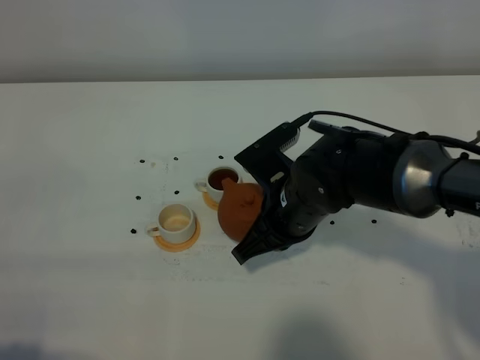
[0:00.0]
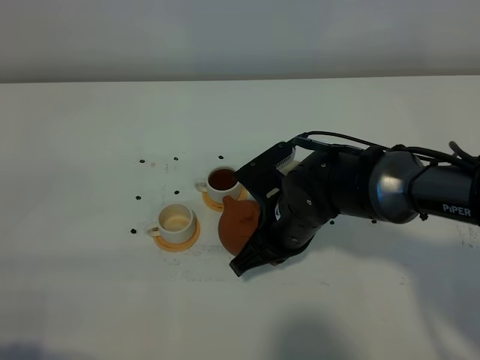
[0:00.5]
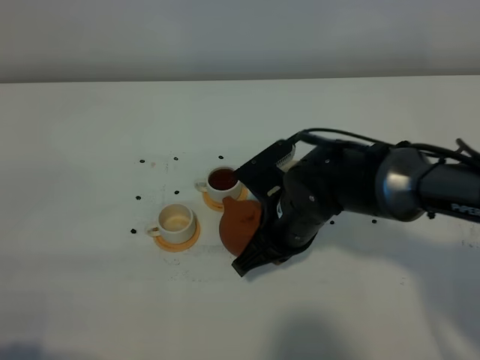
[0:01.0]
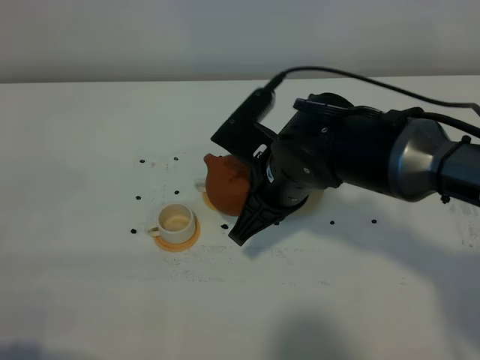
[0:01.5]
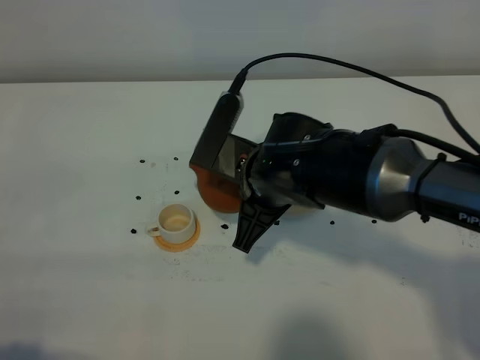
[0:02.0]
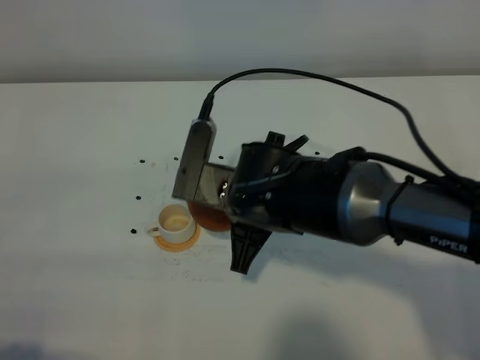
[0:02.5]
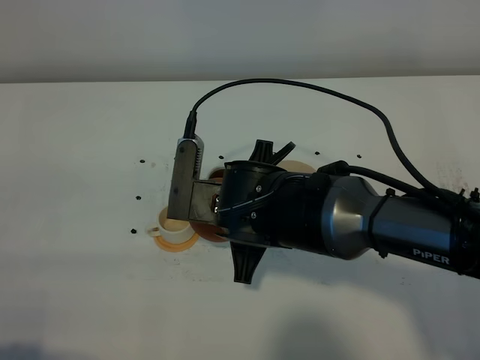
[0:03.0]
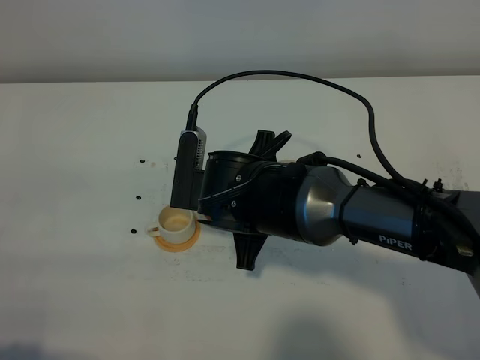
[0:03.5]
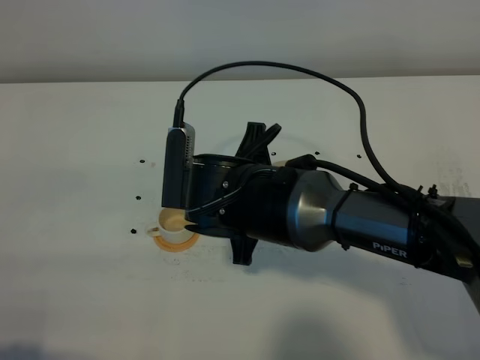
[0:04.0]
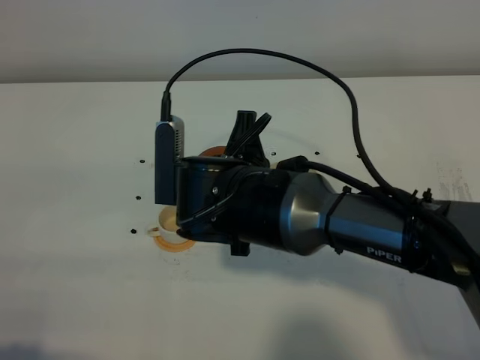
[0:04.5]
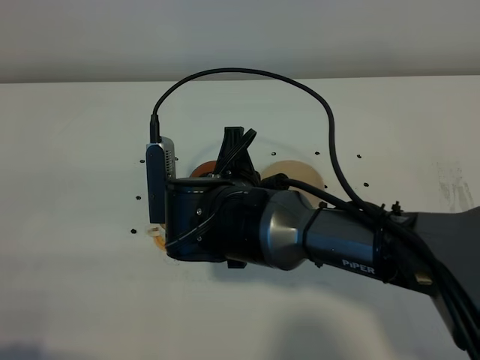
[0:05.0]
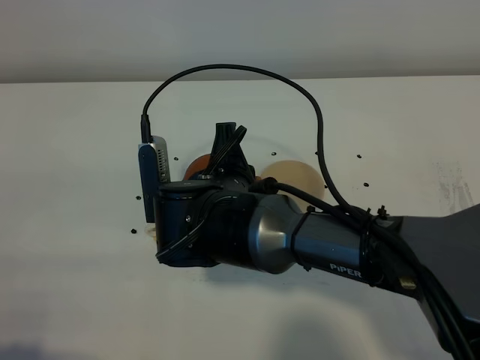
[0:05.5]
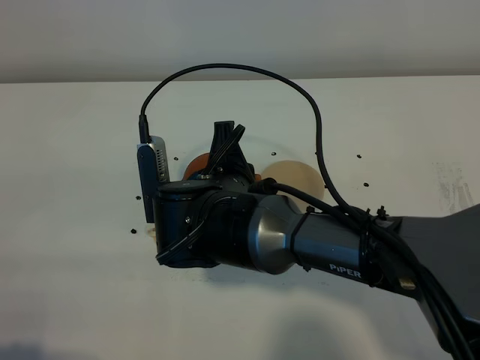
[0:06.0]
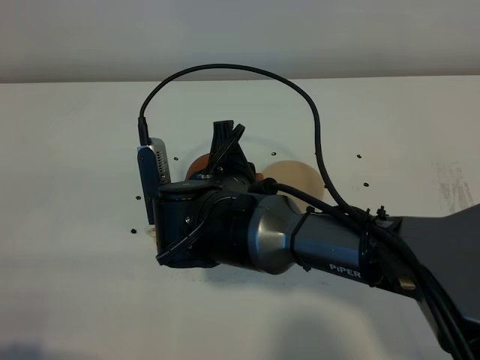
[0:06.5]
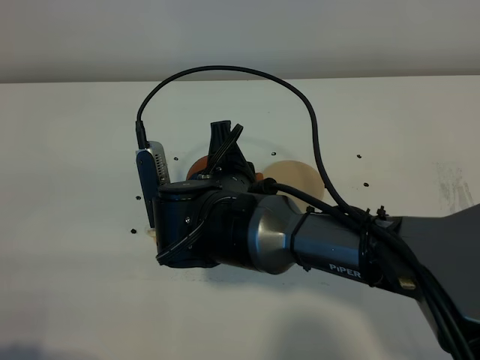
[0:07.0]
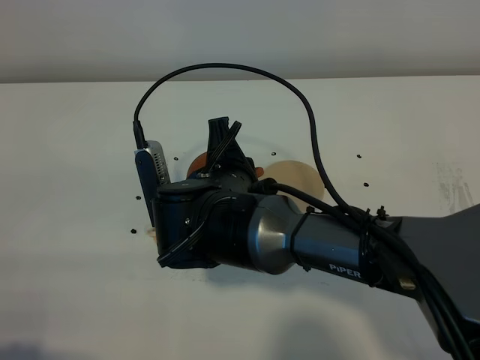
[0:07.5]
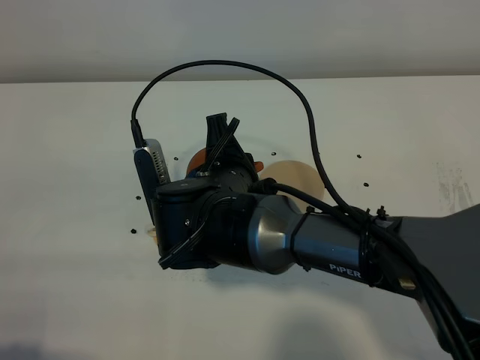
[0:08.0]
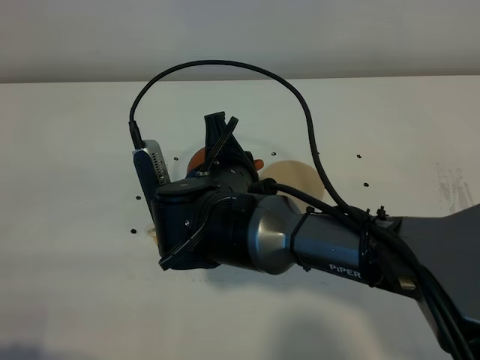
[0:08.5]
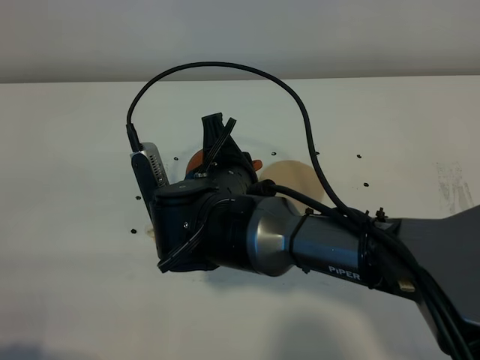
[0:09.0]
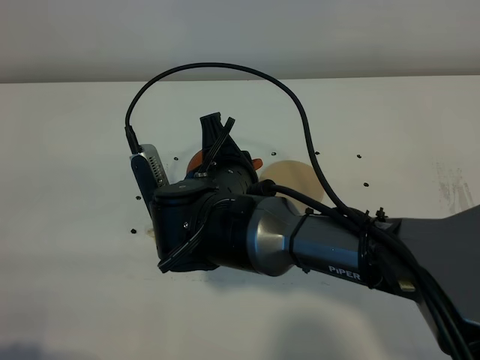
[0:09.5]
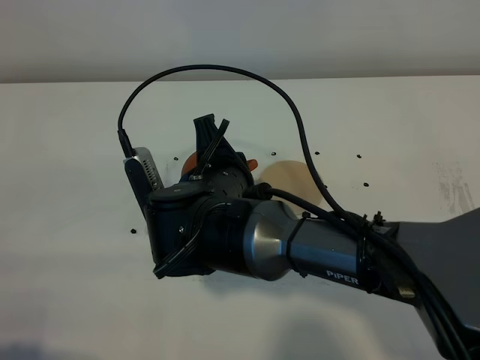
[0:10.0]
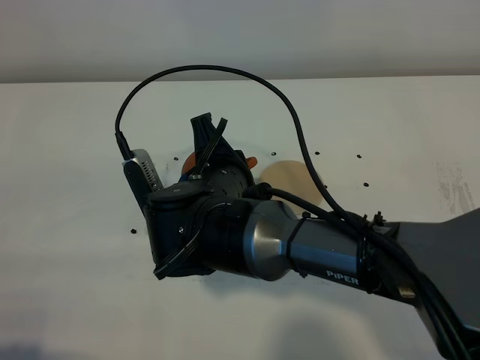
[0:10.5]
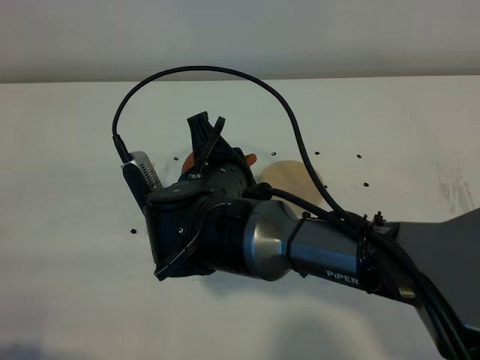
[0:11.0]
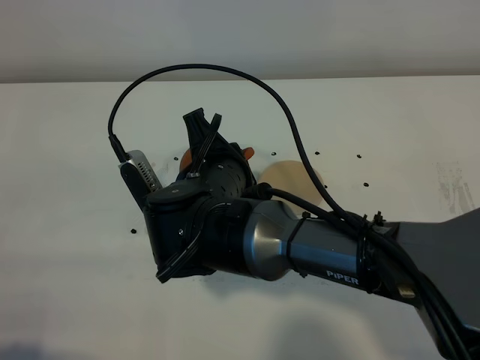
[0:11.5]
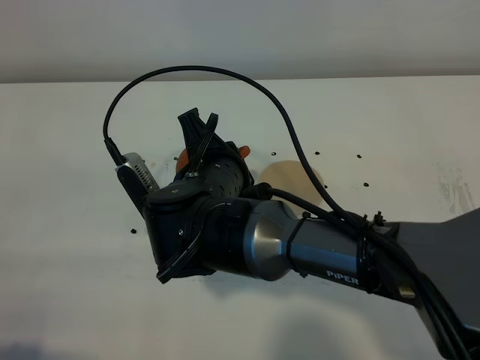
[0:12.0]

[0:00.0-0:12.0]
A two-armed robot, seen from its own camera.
Task of the whole recording: grasp the brown teapot and pour the tea into the two white teacups one by one, put the brown teapot back in its original place.
0:00.0 to 0:02.0: The right gripper ends up approximately 5 cm from where it was.
0:06.0 to 0:10.0: The grippers move only a little.
0:10.0 to 0:12.0: There are only small adjustments of the grippers.

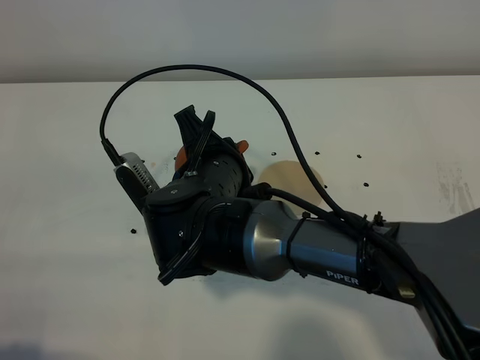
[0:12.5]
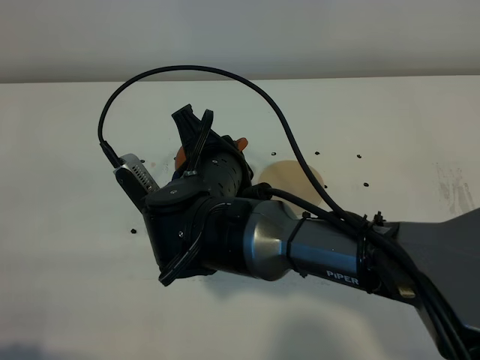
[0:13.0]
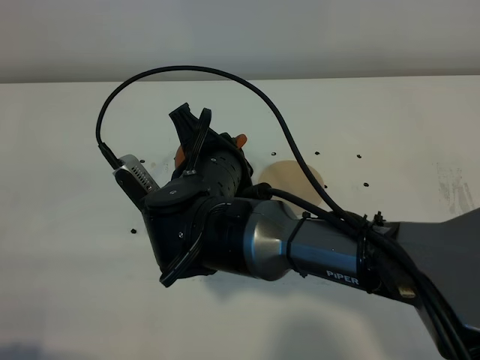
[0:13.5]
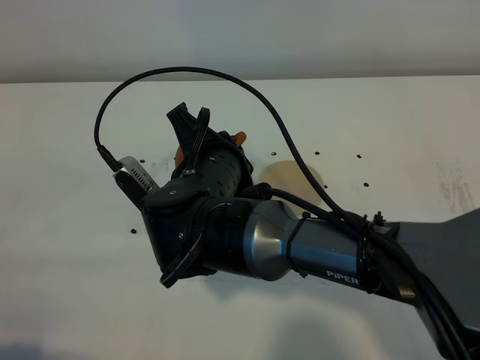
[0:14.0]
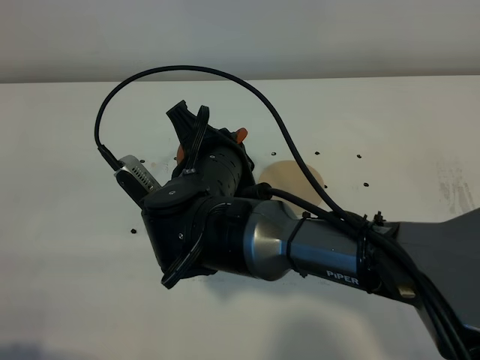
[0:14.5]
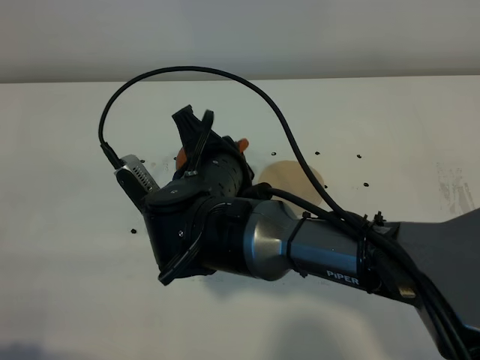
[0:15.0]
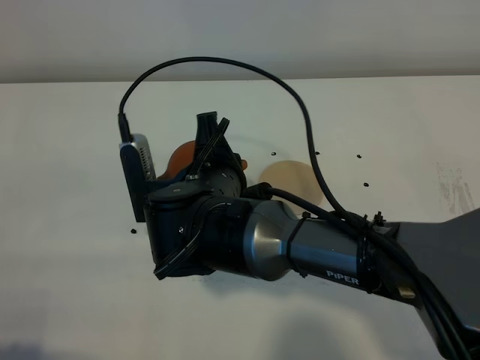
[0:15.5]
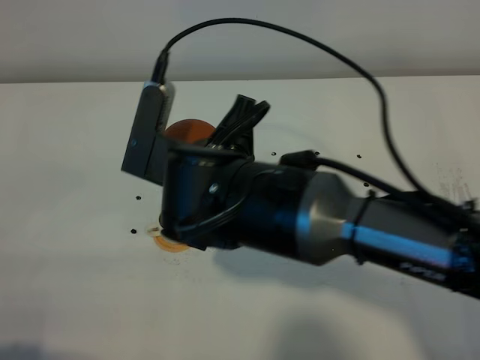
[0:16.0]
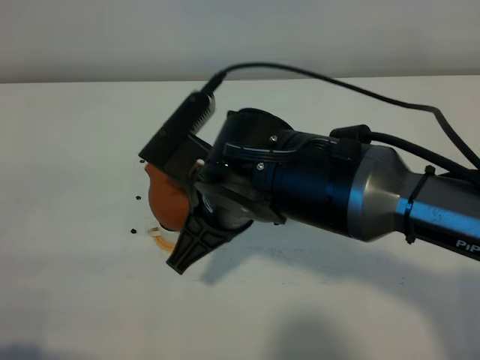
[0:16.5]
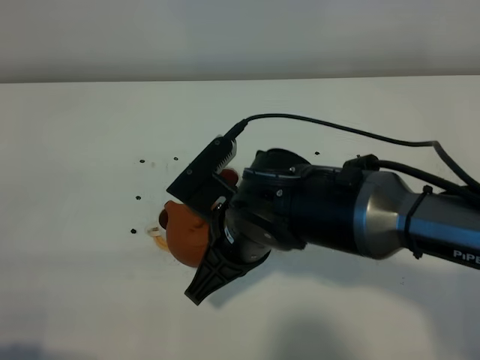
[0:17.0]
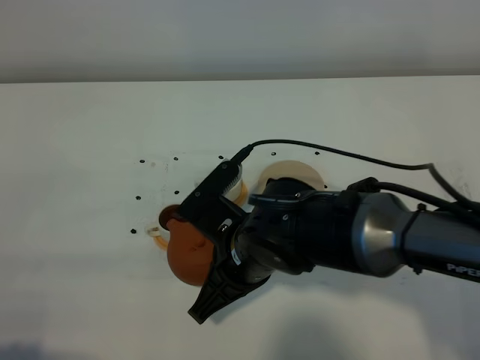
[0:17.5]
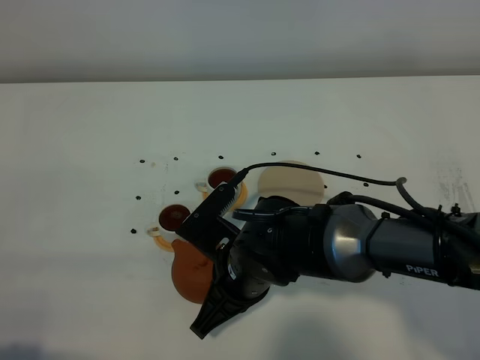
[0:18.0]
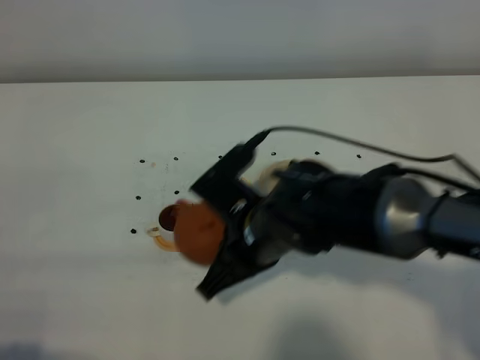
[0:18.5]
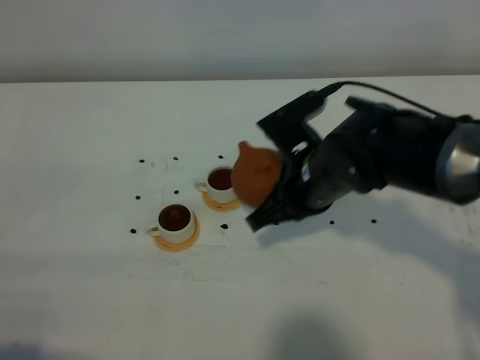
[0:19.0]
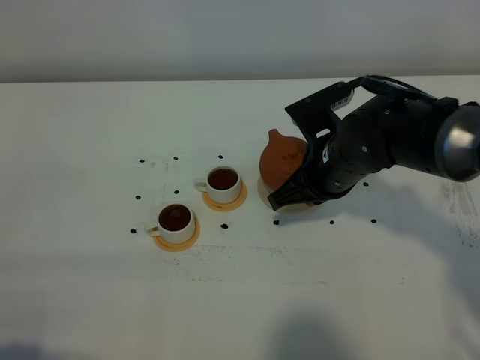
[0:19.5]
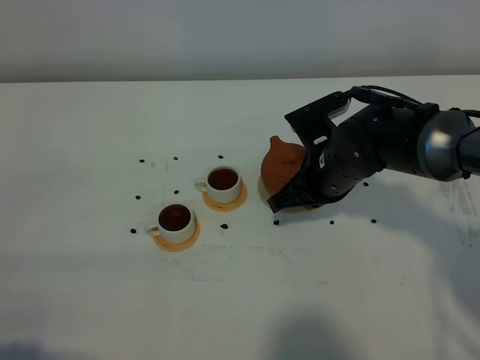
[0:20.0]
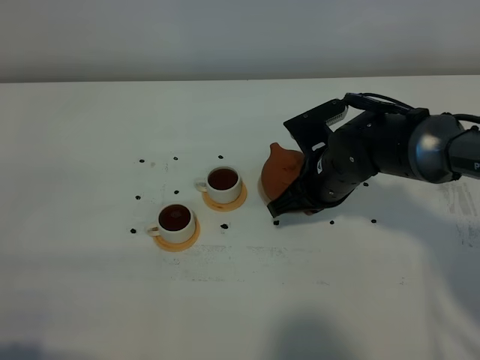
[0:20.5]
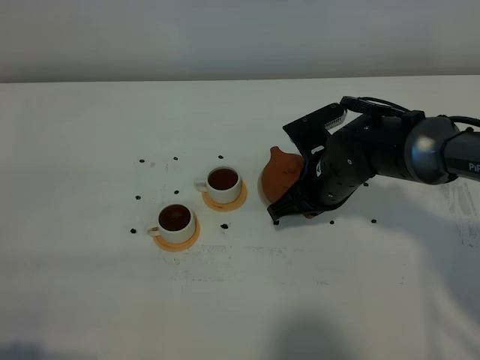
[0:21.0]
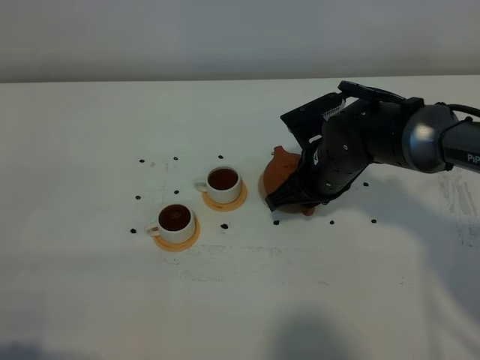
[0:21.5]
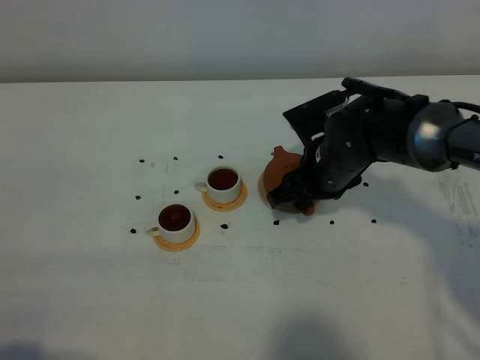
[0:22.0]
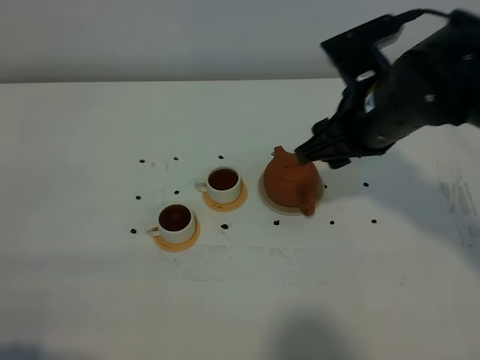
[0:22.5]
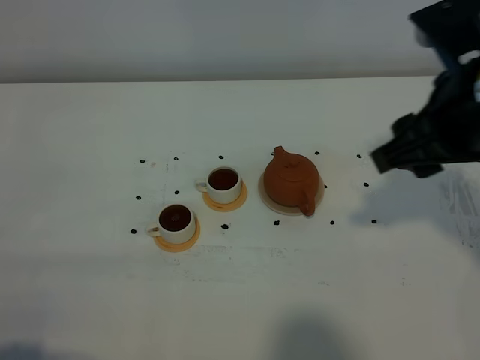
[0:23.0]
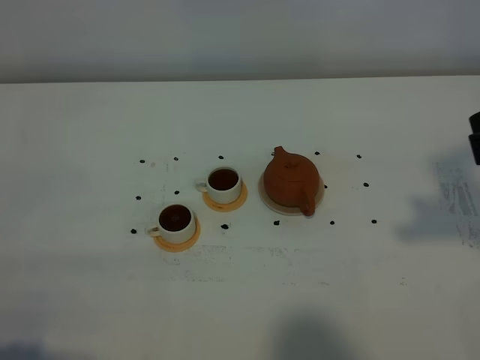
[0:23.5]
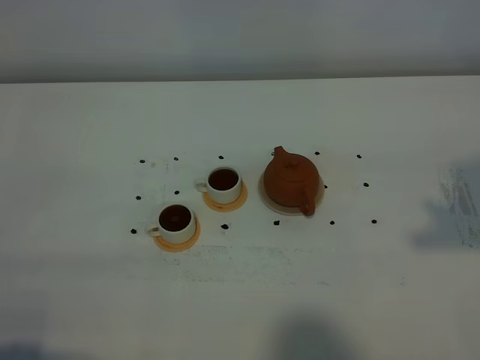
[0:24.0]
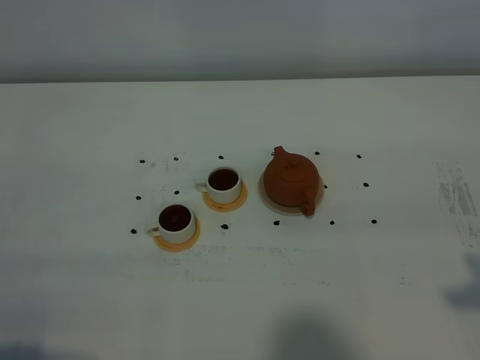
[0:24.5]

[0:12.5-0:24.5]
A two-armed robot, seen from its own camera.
Task of the whole recording: grasp the brown teapot and pour the tea into the two white teacups one by one, put the brown teapot back in its original place.
Step, 0:12.5 to 0:17.0: Pour tea into the teacup with the right gripper.
0:12.5 to 0:14.5: There are only small adjustments of the grippers.
0:14.5 to 0:16.5: The right gripper moves about 5 cm.
0:16.5 to 0:18.5: The right gripper shifts about 5 cm downward.
0:18.5 to 0:20.5: The right gripper is displaced forward and to the right by approximately 15 cm.
0:20.5 to 0:22.5: The right gripper moves upward, some 15 cm, and opens up.
0:22.5 to 0:24.5: The right gripper shifts some 25 cm backward and to the right, and closes up.

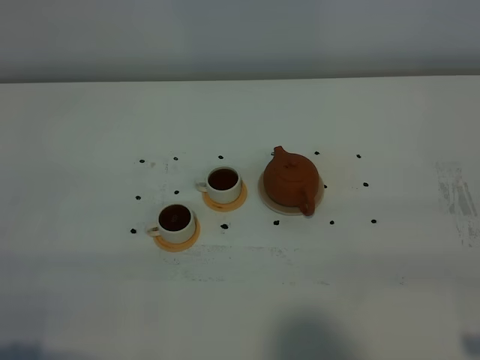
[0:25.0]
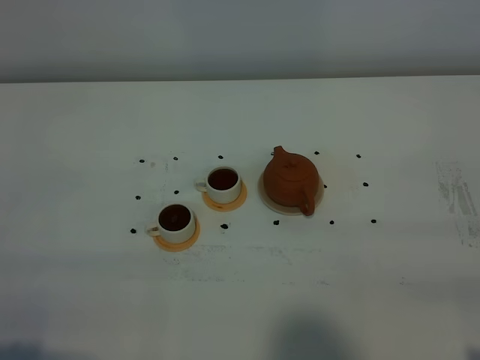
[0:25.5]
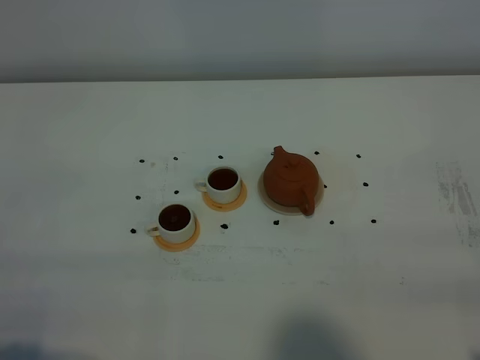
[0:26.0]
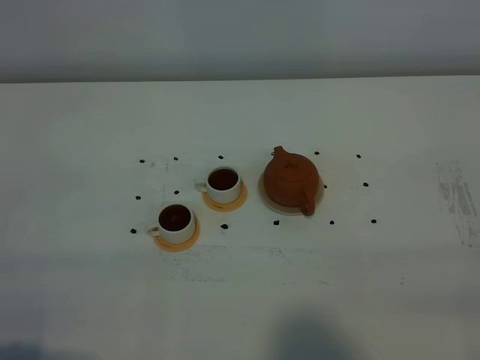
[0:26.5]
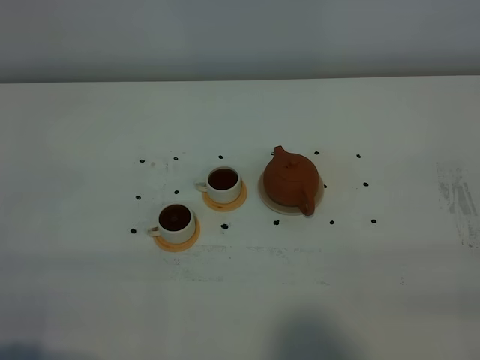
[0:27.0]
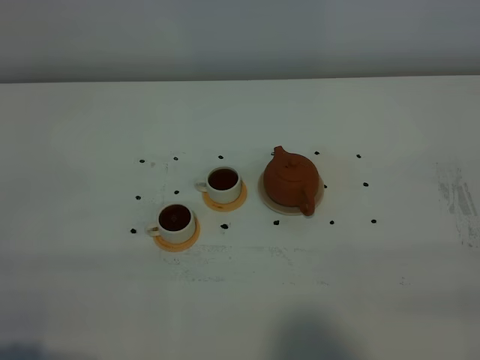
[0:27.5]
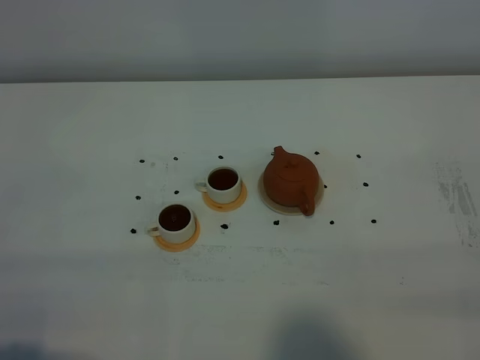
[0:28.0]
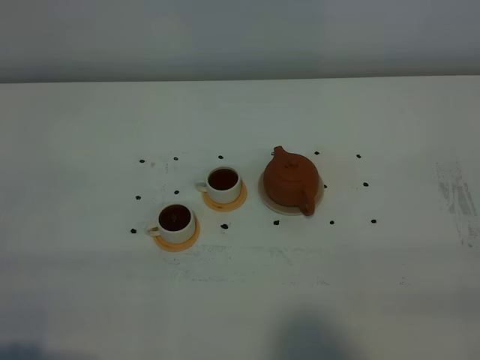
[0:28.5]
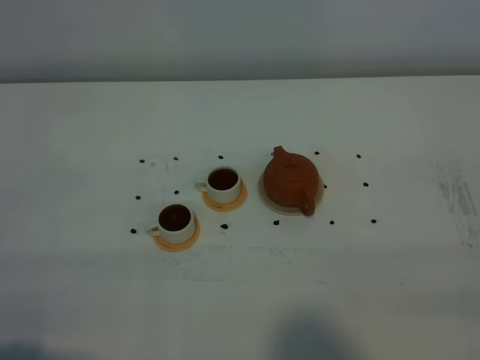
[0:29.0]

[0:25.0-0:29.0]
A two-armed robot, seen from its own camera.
Task of the whole recording: grasp the brown teapot and pour the tea into the two white teacups one by one, put the brown teapot back in its original place.
0:27.0 to 0:29.0: Both grippers stay put.
